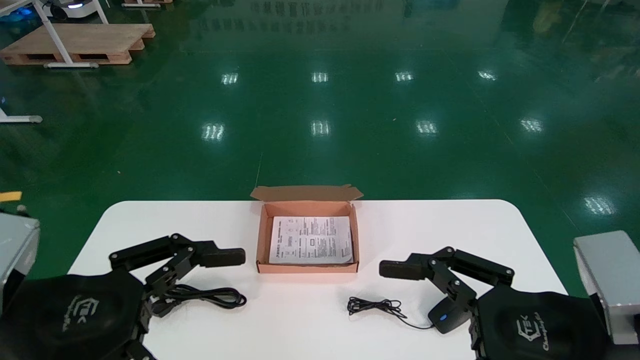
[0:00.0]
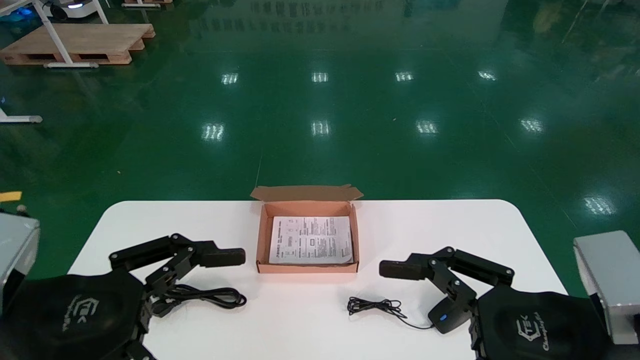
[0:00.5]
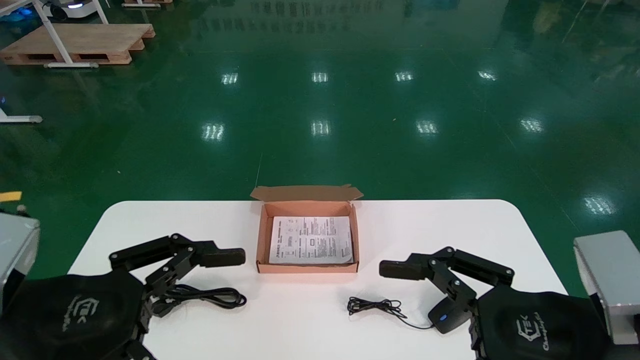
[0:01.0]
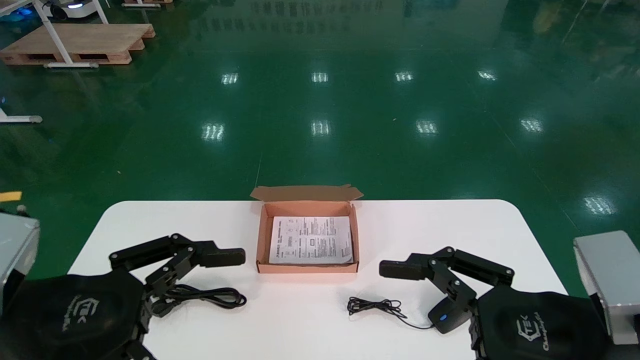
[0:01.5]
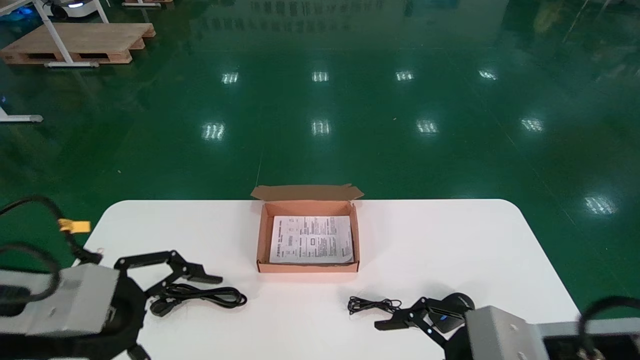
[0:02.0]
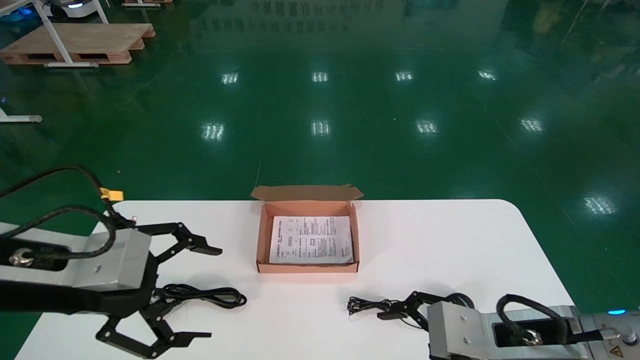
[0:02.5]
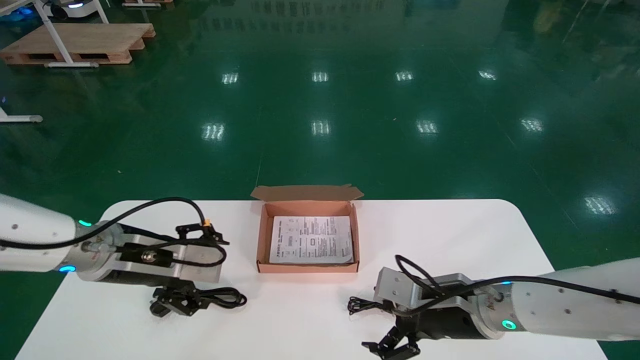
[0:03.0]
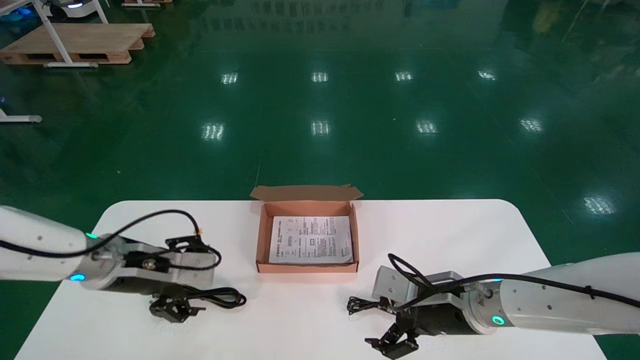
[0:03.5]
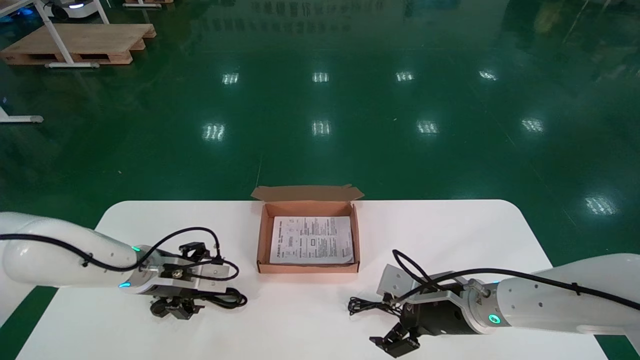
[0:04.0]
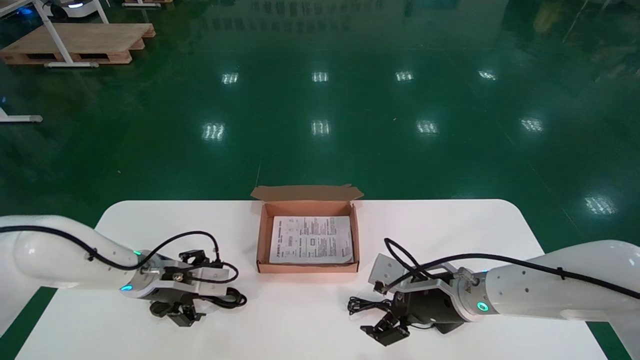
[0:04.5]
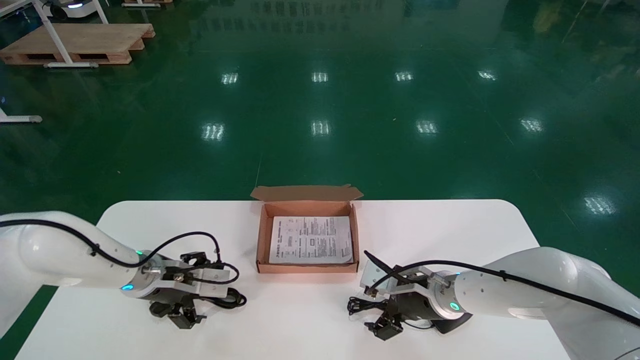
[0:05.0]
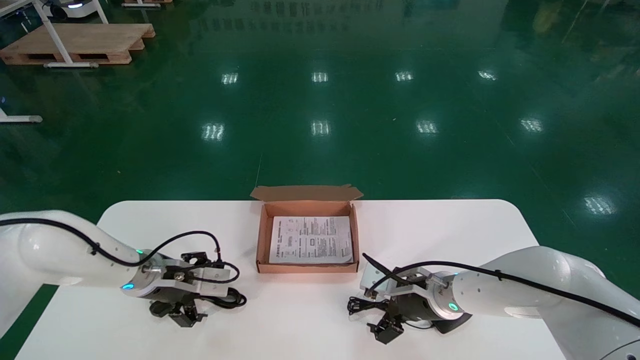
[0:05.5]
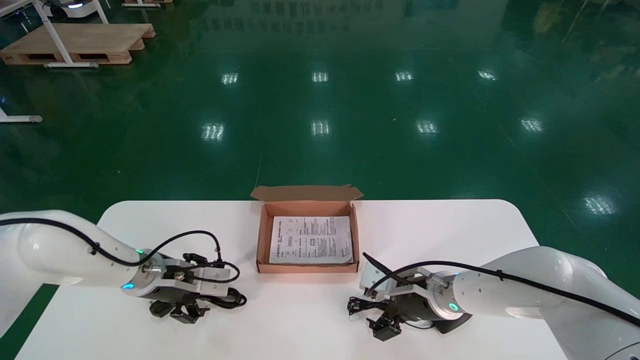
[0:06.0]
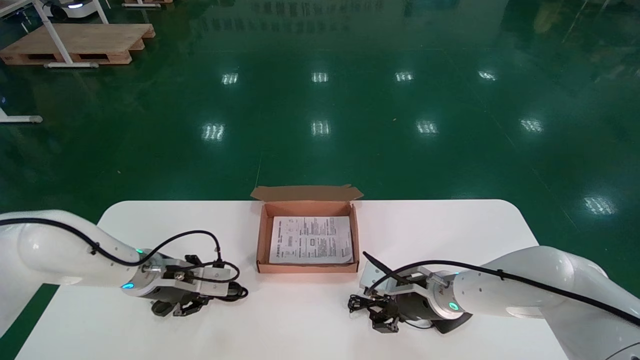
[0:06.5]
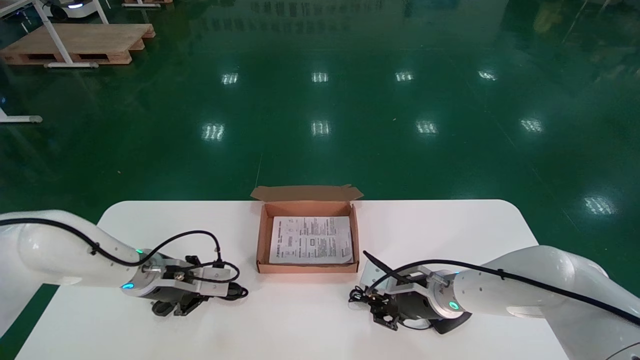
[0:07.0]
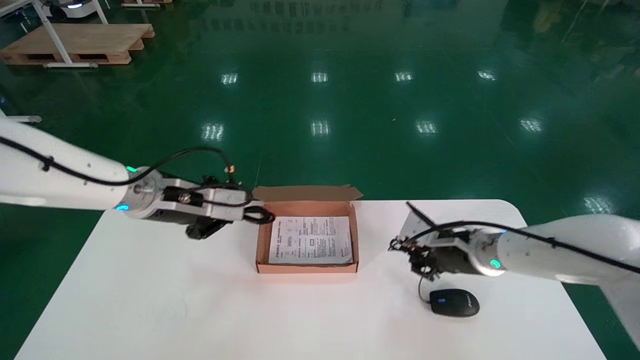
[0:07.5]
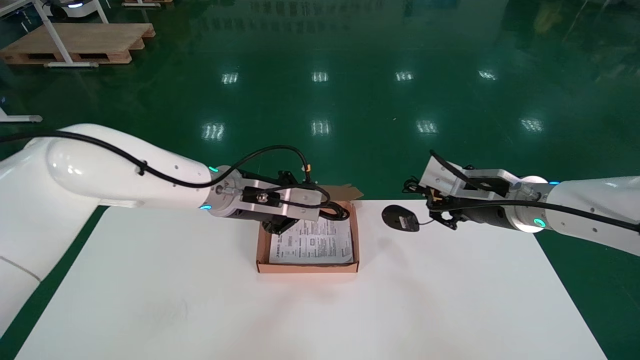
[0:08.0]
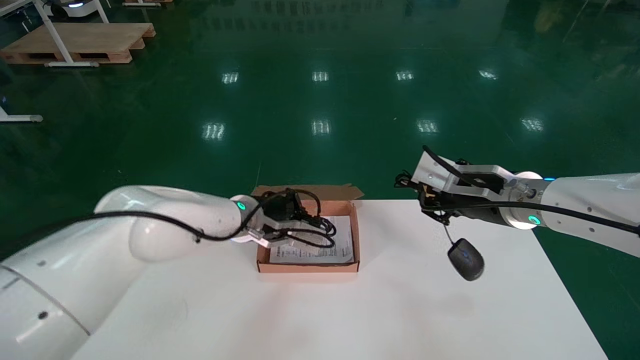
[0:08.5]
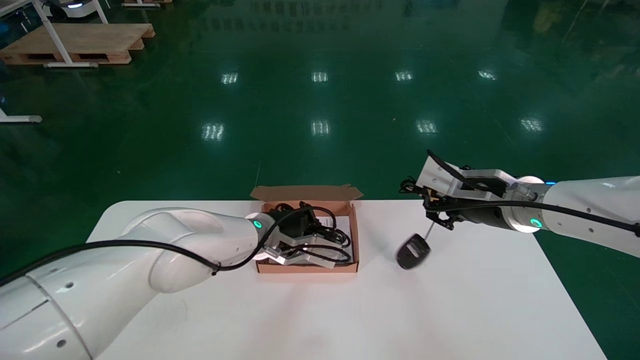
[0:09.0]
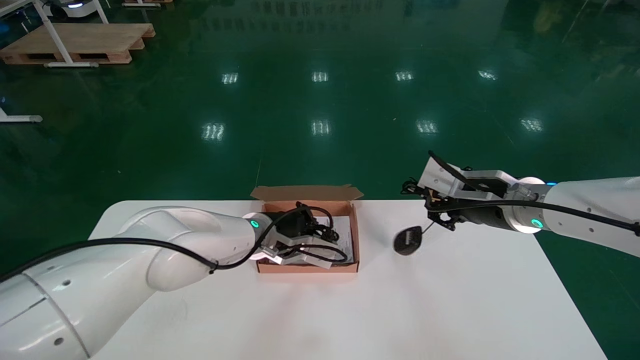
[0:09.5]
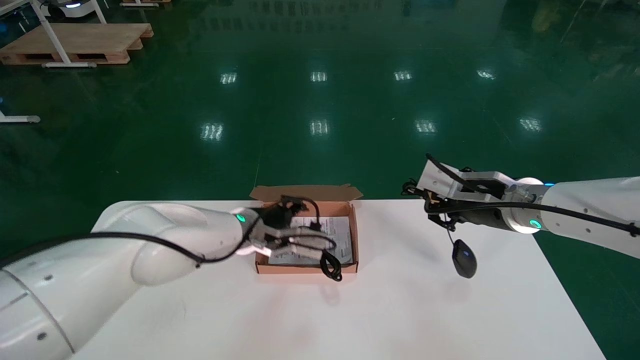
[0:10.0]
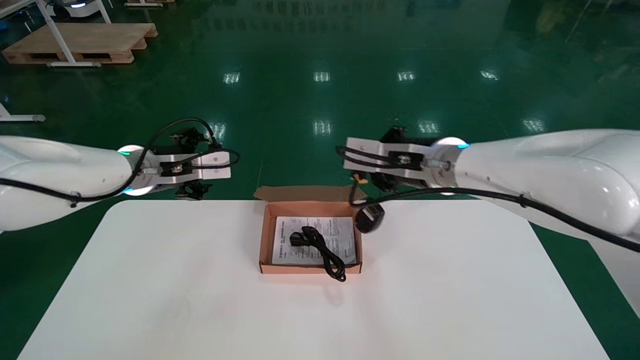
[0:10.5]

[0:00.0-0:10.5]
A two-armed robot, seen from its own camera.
Step, 0:02.0 to 0:07.5: Simultaneously pick up the mouse and power cord from the accessory packaging area.
0:00.0 to 0:02.0: The right gripper shifts by approximately 5 cm.
0:02.0 to 0:04.0: The left gripper goes some 25 cm forward and downward. The right gripper goes about 15 cm forward.
0:04.0 to 0:06.5: The right gripper moves forward, some 5 cm, and closes up. Meanwhile the left gripper closes its fingers.
0:06.5 to 0:08.5: The left gripper heads to the right and upward, covering some 20 cm; the right gripper goes approximately 20 cm upward and to the right.
0:08.5 to 0:10.5: The left gripper moves to the left and upward, some 15 cm, and opens; the right gripper goes approximately 10 cm to the left.

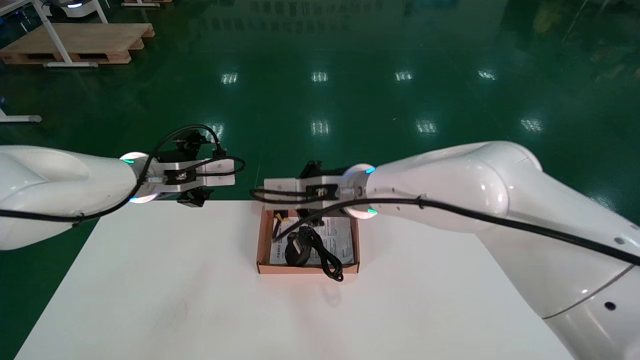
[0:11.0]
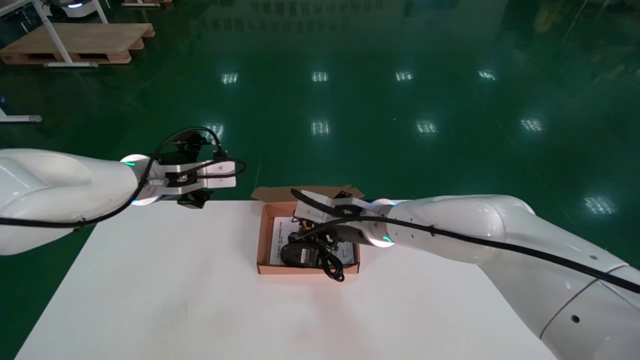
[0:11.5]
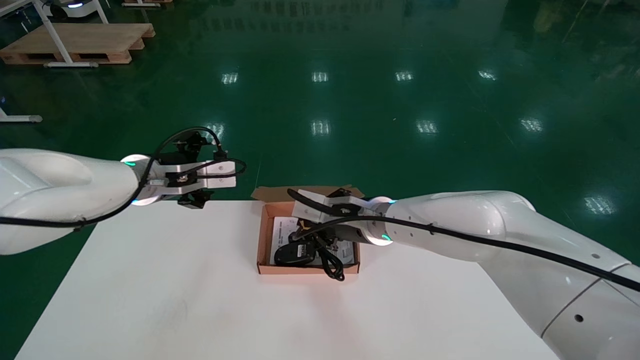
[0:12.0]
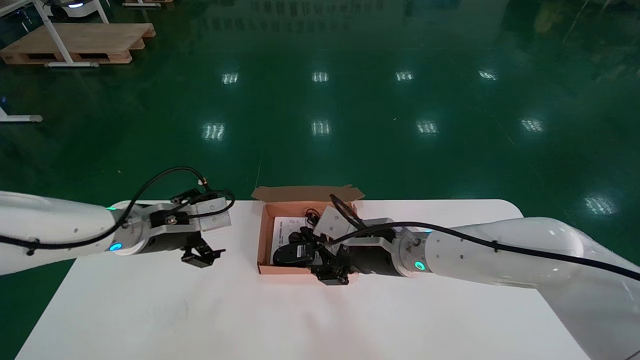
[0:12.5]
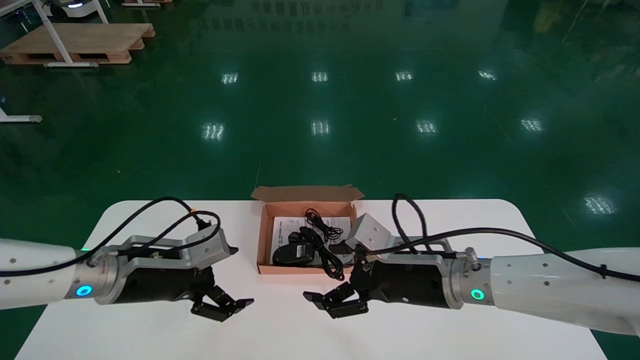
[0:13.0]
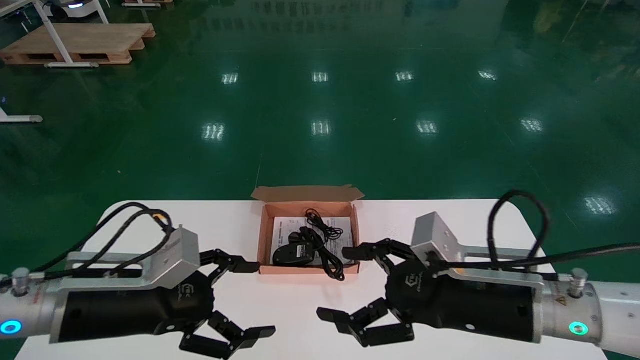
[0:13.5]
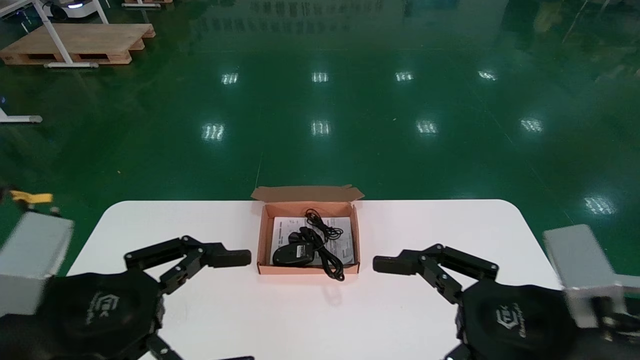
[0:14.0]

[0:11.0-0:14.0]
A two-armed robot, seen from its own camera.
0:11.0 to 0:12.5: The right gripper shifts roughly 10 cm downward and to the right, and opens its fingers. The left gripper heads downward, covering about 5 cm.
0:12.5 to 0:14.0: The left gripper goes approximately 20 cm backward. Meanwhile the right gripper is displaced backward and to the right by approximately 25 cm, and opens up.

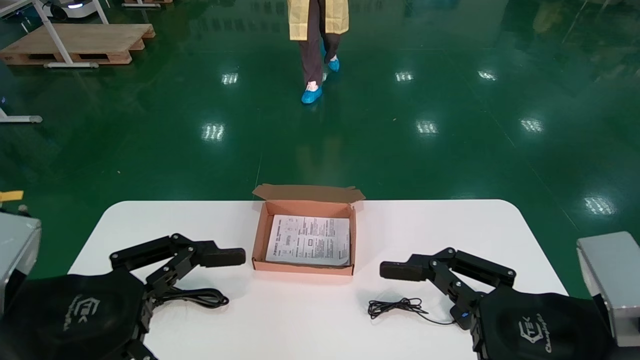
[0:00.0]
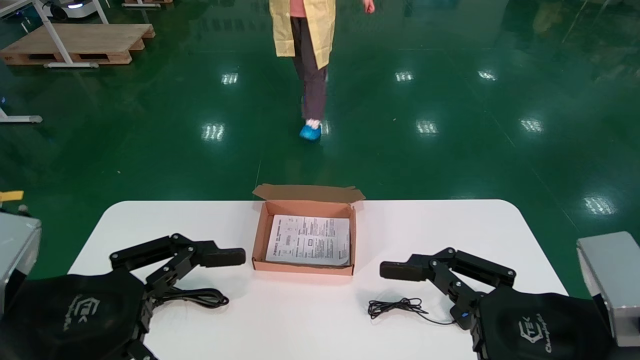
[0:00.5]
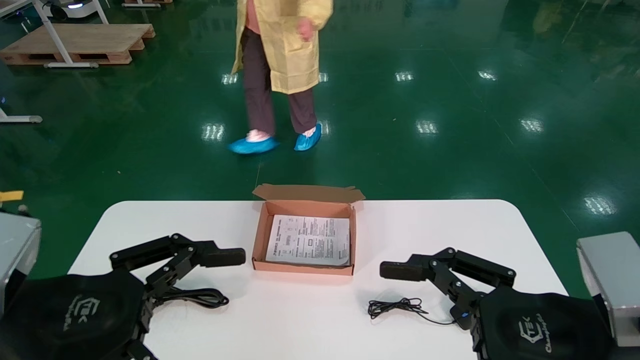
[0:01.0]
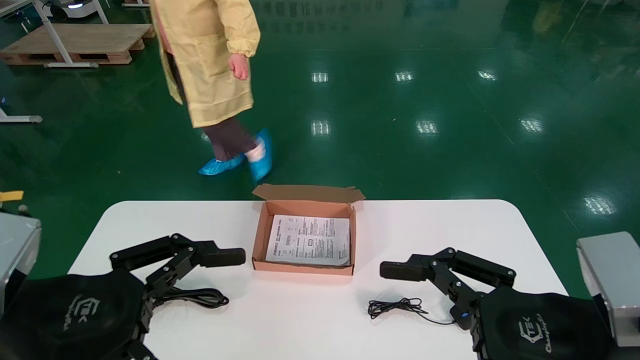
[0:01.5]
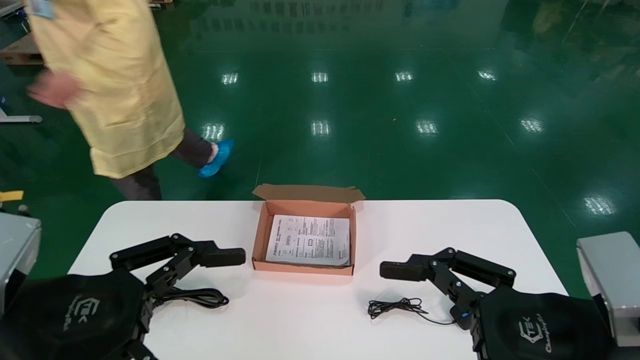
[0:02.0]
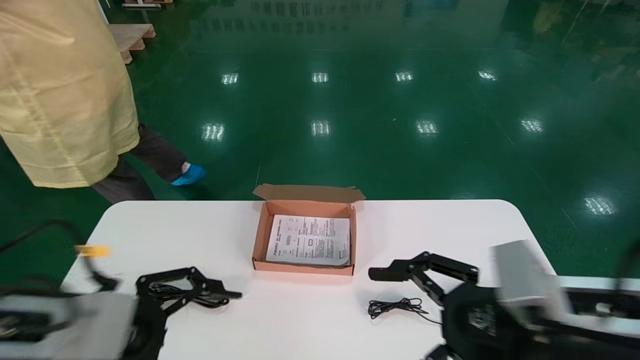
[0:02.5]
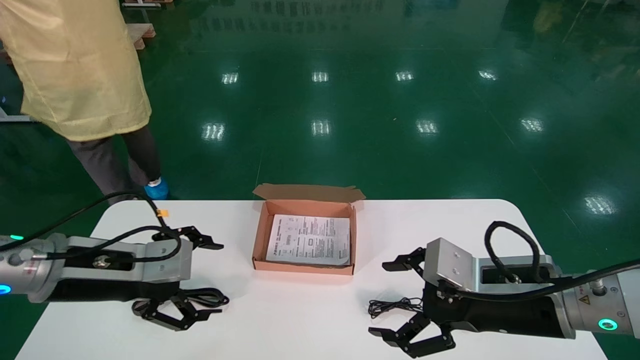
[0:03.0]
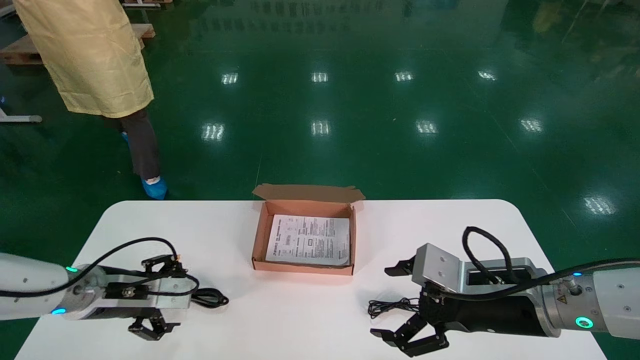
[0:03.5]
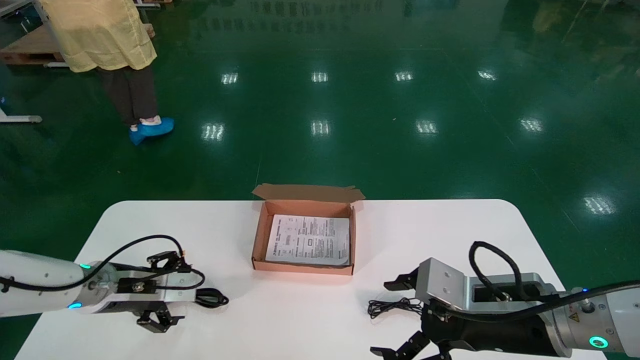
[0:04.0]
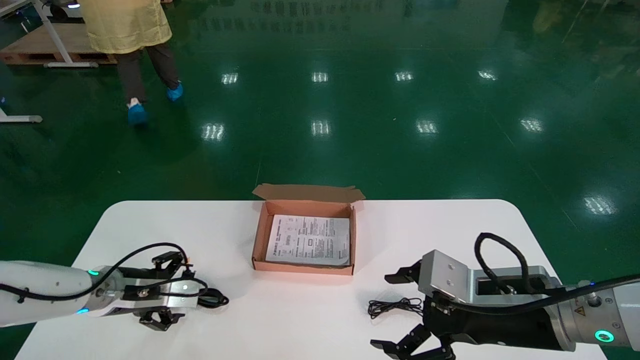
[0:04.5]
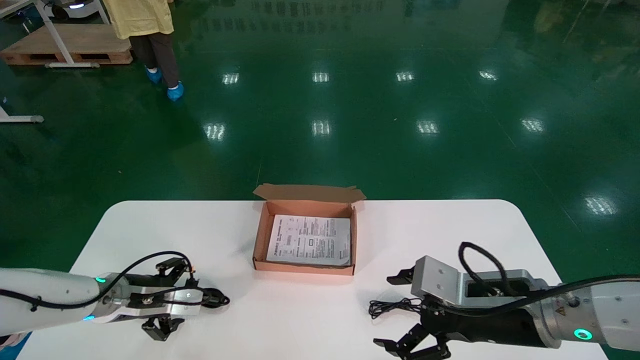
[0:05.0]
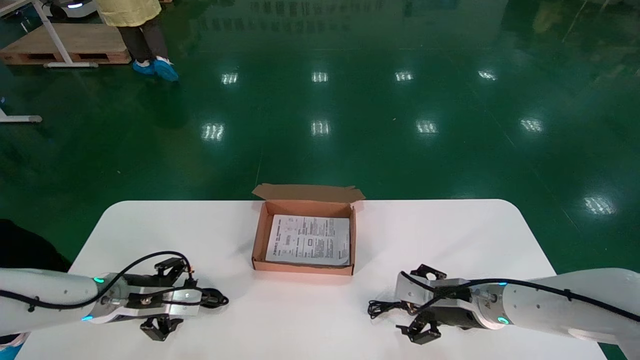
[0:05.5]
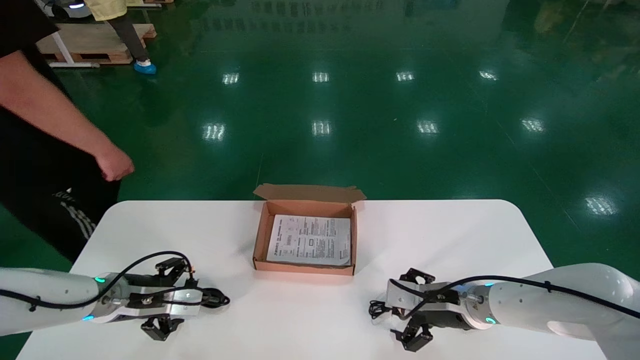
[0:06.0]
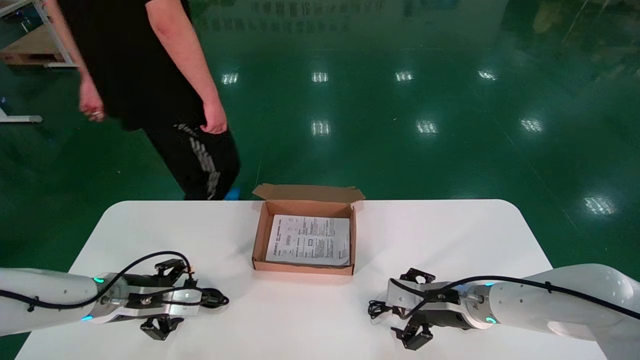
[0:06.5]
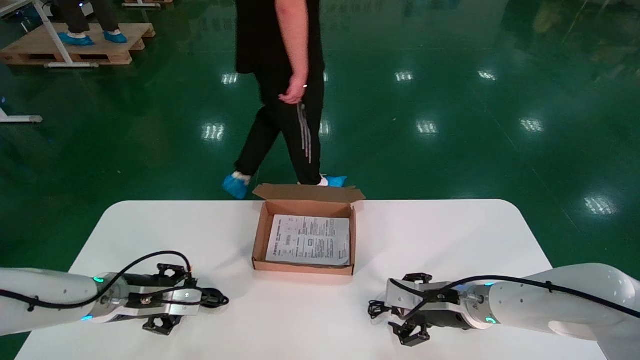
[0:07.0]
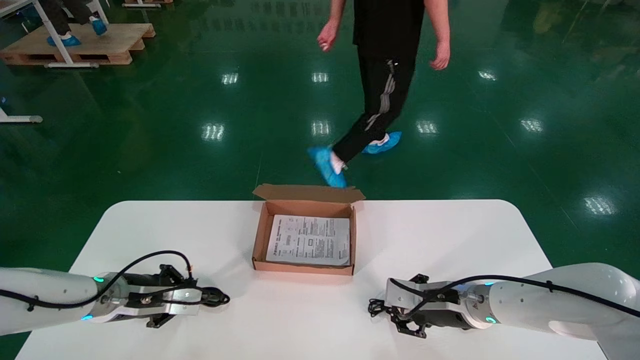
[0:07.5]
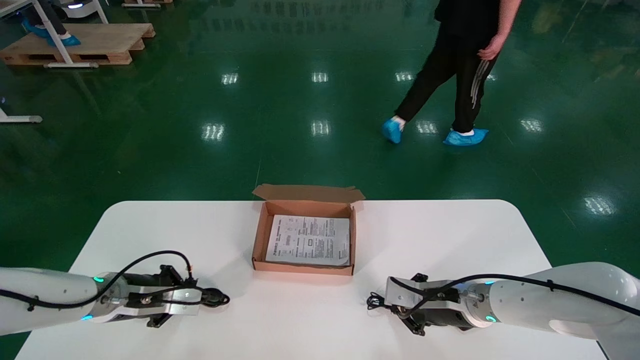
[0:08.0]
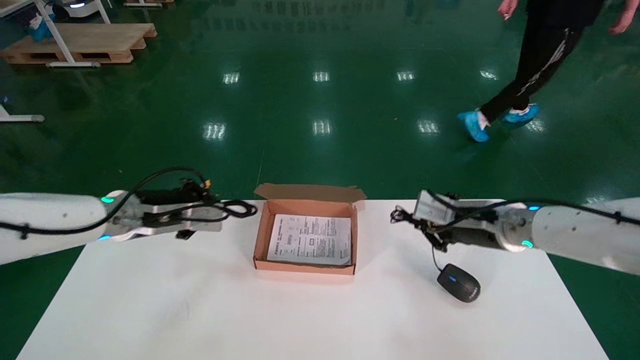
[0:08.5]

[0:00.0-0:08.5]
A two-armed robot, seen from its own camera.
Step, 0:03.0 to 0:07.5: Simultaneously pick up the mouse and power cord from the accessory packaging area.
0:00.0 to 0:02.0: The two grippers keep their place.
0:02.0 to 0:04.0: The right gripper moves forward, roughly 10 cm, while the left gripper shifts approximately 25 cm forward and downward.
0:04.0 to 0:06.5: The right gripper moves forward and downward, approximately 15 cm.
0:06.5 to 0:08.5: The left gripper shifts roughly 15 cm upward and to the right, and closes its fingers, while the right gripper heads upward, covering some 15 cm, and closes.
